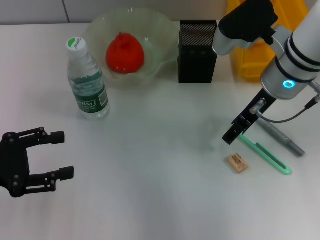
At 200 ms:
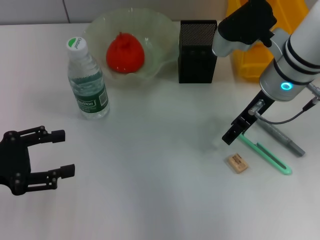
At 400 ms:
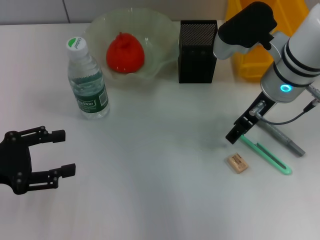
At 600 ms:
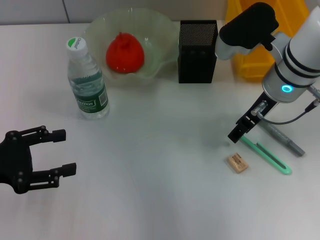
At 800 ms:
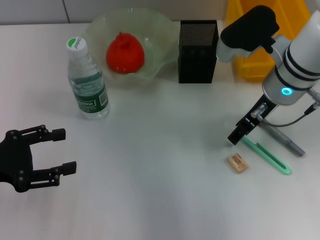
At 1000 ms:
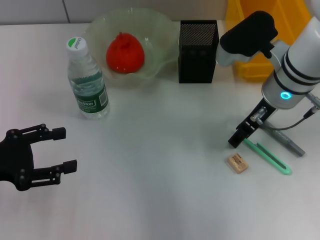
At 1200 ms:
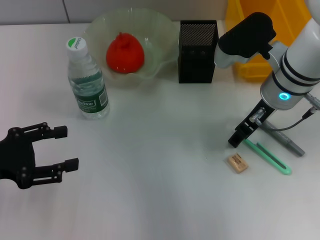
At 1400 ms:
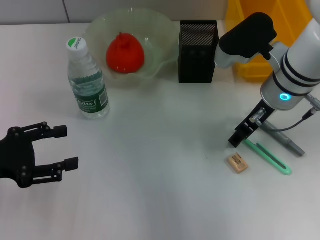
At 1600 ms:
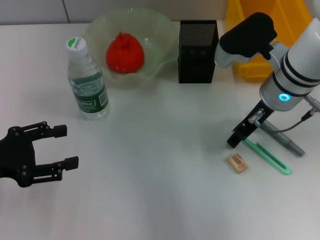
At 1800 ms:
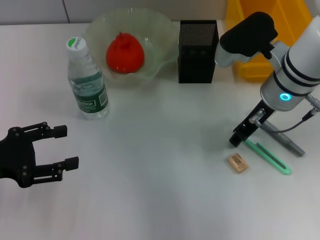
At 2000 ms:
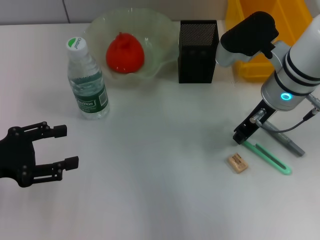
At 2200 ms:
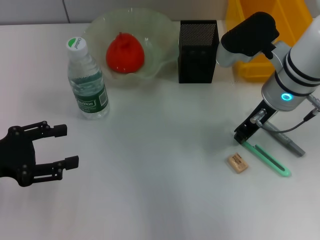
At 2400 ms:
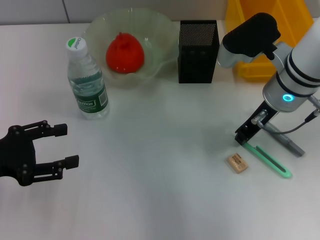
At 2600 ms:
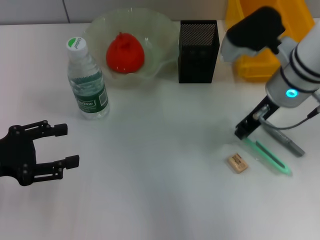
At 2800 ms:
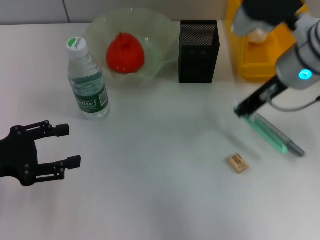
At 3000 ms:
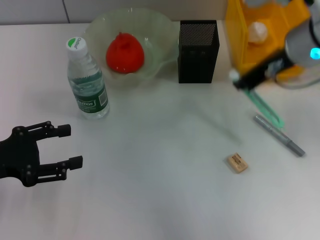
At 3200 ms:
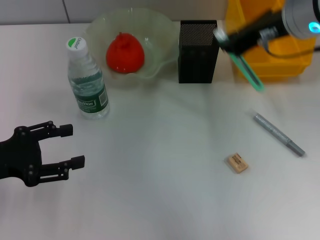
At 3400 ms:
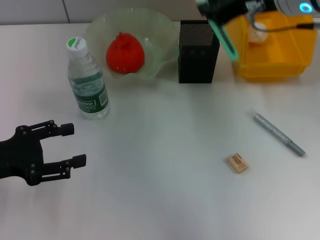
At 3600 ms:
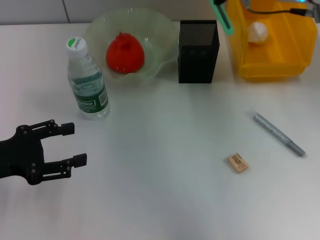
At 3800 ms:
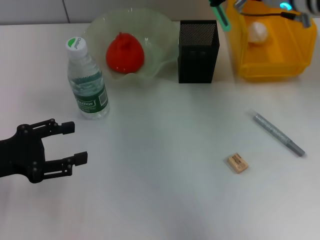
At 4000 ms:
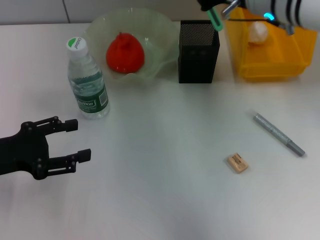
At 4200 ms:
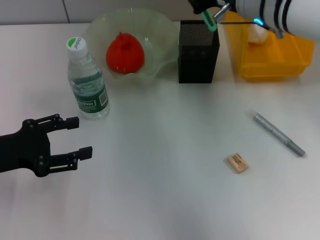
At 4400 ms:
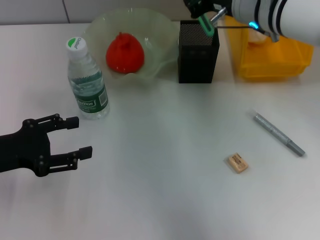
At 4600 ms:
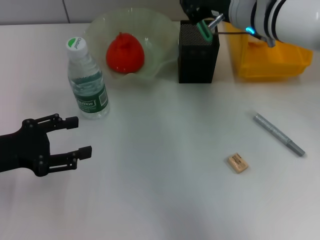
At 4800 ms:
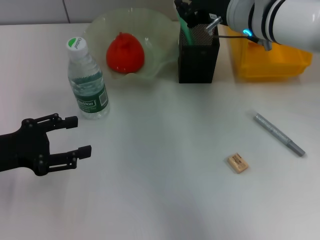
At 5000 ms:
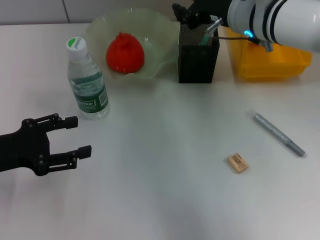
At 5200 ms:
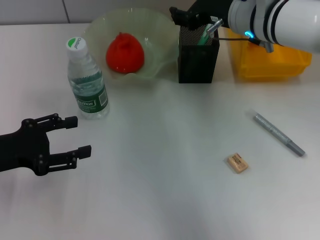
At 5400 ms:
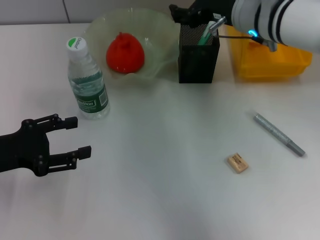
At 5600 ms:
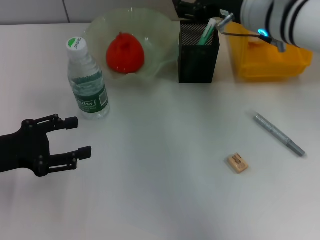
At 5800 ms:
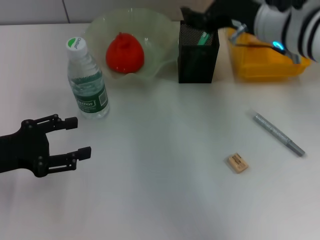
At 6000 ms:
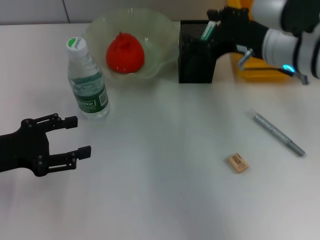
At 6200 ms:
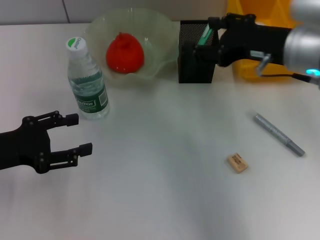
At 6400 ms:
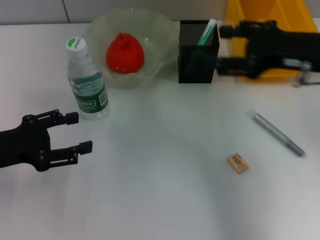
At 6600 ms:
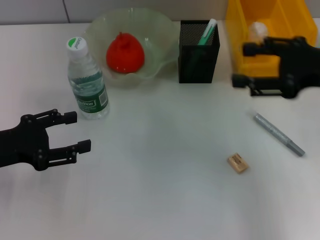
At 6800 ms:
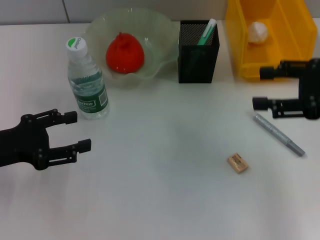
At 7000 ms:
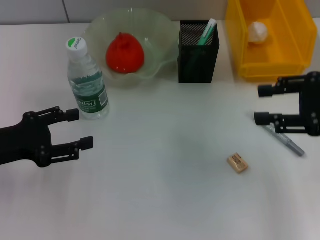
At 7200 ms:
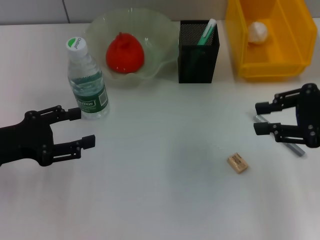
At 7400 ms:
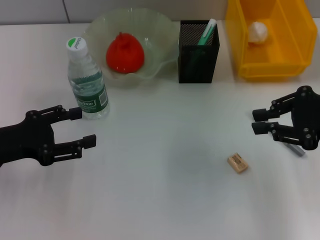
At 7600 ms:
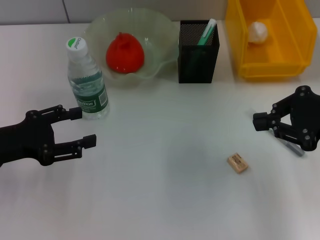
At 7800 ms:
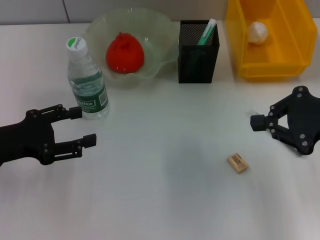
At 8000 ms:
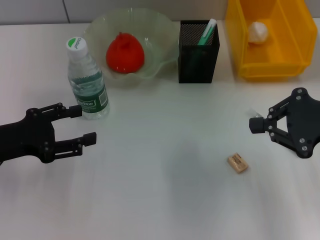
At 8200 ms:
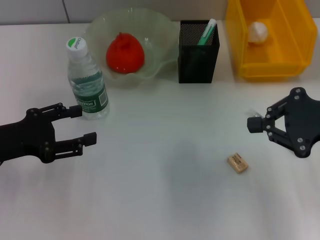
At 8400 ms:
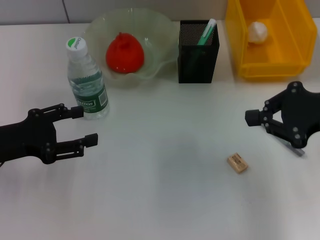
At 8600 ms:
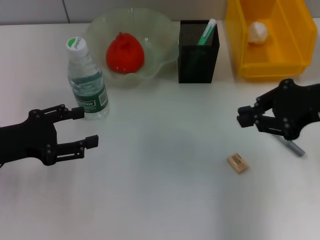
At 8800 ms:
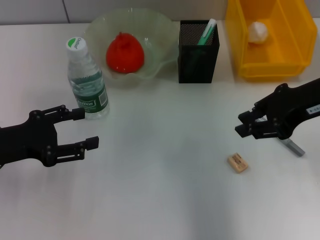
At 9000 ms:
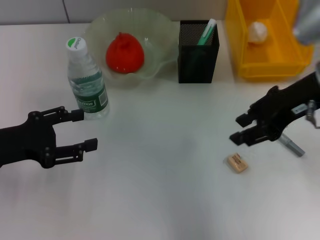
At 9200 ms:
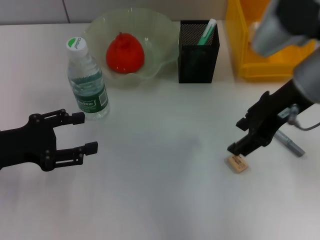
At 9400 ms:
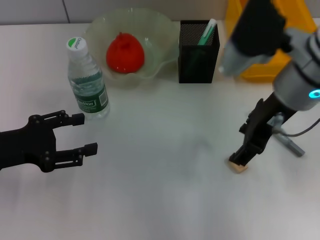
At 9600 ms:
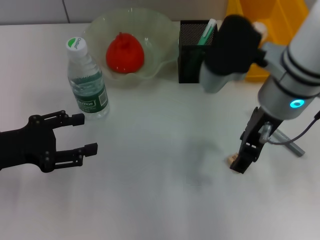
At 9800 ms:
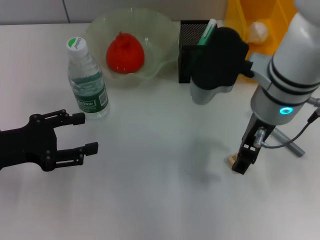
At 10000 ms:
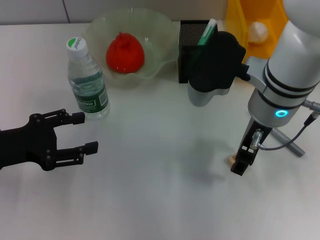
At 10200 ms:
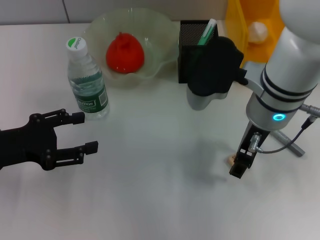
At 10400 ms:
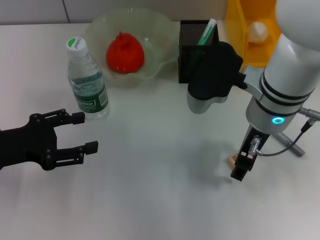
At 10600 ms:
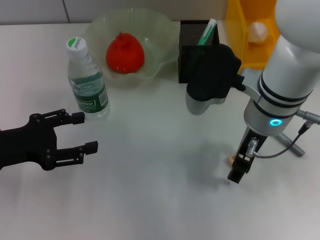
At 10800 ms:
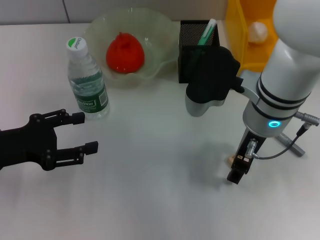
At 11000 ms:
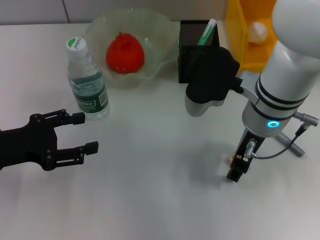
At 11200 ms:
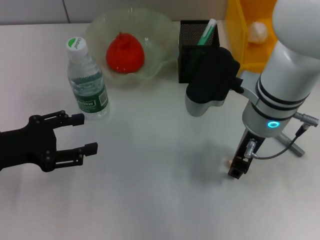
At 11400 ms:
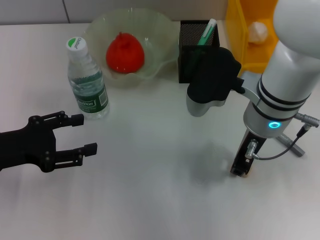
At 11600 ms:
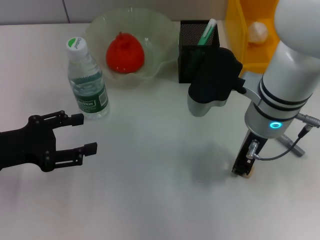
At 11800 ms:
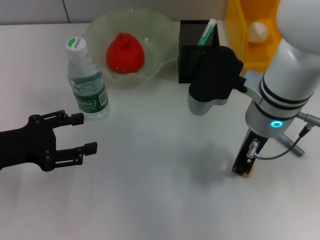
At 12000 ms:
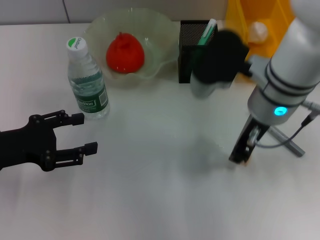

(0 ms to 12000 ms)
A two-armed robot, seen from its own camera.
Step, 0 ms - 2200 ms: Grab the blue utility knife with the right hand.
Step, 2400 ms - 5000 ms: Place the blue utility knife into the pen holder with the right hand.
Step, 5400 ms - 11600 ms: Grab the eraser with the right hand.
0 ms - 1600 ms: The grippers make only small movements.
1600 ms - 3000 ms: The right gripper travels upward by approximately 10 cm, and closes its fingers.
3000 ms - 4400 ms: The right gripper ends up some 5 cm from where it was.
4400 ms - 6000 ms: The right gripper shifts roughly 5 cm backward, and opens its fingers.
6000 ms - 7600 ms: The right gripper travels to the right and backward by approximately 15 cm, and closes.
7600 ms - 9000 ms: The right gripper heads to the left, covering approximately 10 cm.
9000 ms - 10400 ms: The right gripper travels to the left and downward by some 10 cm, and opens.
10400 ms - 12000 ms: The right gripper closes.

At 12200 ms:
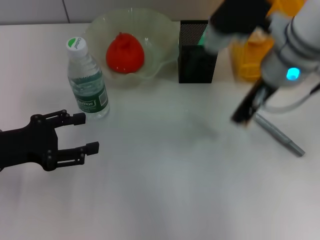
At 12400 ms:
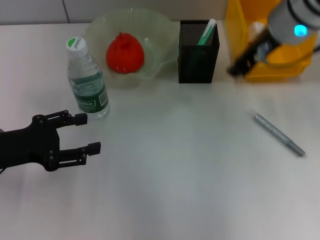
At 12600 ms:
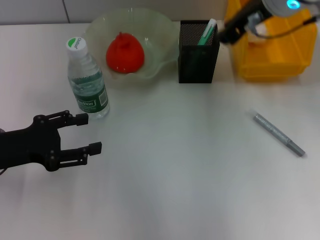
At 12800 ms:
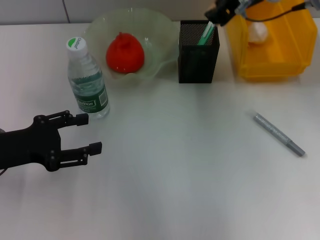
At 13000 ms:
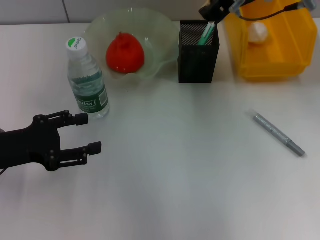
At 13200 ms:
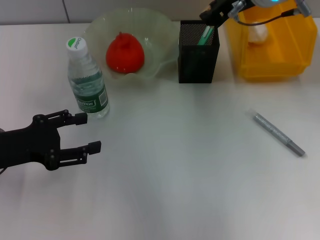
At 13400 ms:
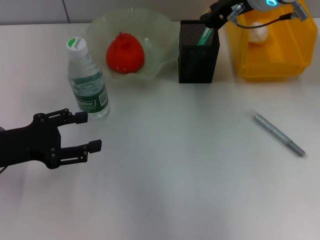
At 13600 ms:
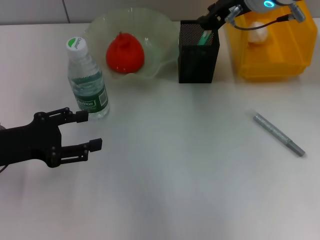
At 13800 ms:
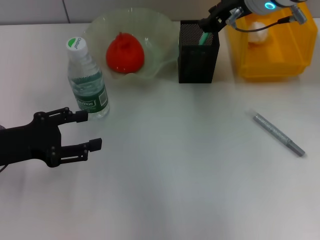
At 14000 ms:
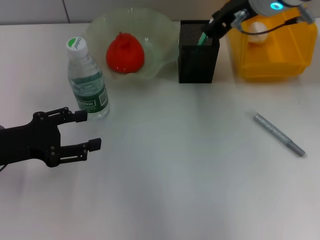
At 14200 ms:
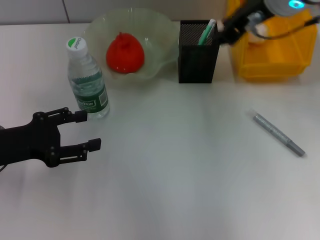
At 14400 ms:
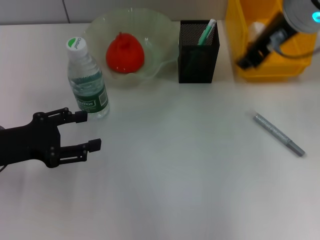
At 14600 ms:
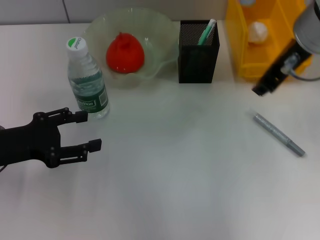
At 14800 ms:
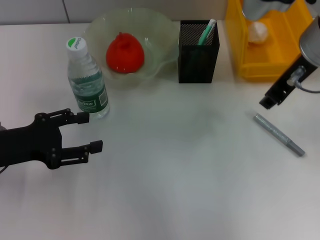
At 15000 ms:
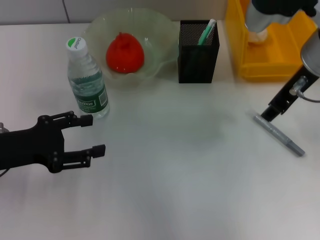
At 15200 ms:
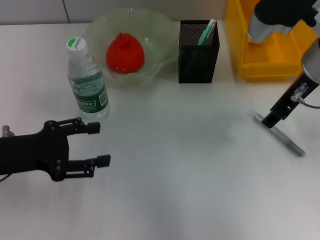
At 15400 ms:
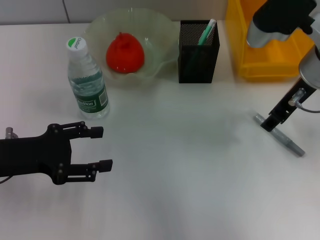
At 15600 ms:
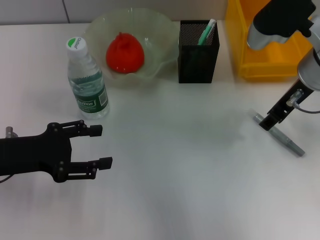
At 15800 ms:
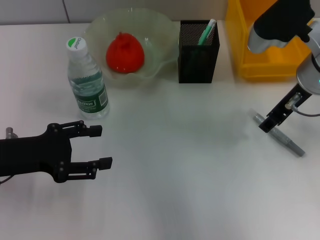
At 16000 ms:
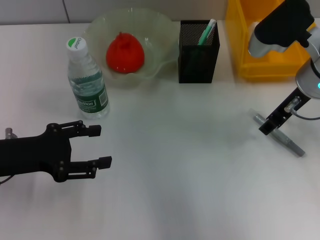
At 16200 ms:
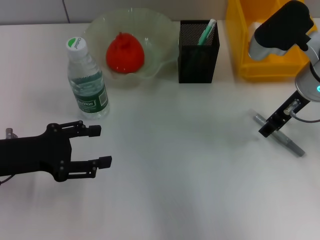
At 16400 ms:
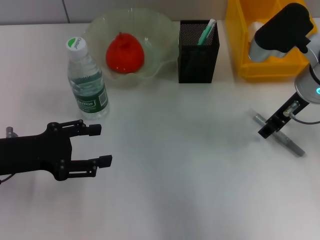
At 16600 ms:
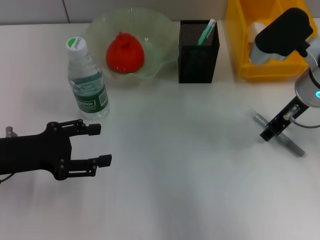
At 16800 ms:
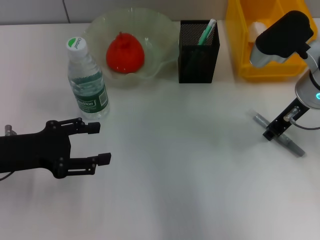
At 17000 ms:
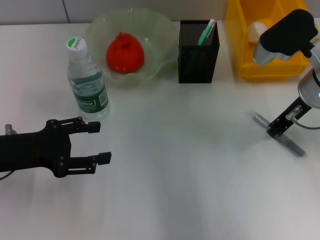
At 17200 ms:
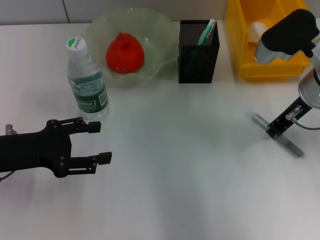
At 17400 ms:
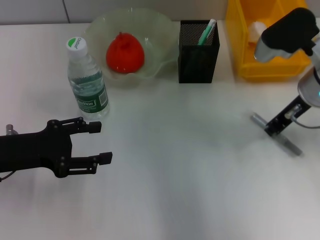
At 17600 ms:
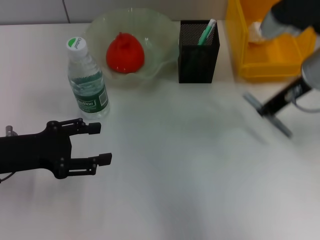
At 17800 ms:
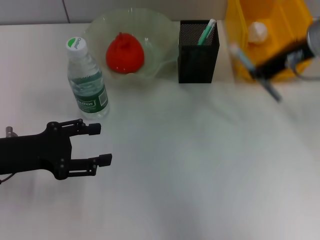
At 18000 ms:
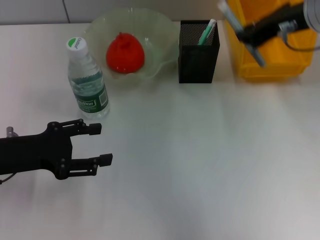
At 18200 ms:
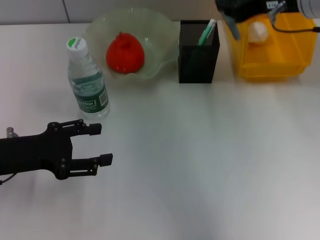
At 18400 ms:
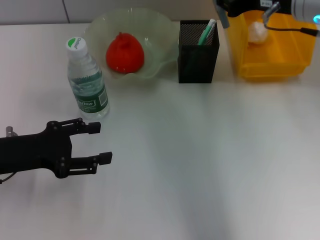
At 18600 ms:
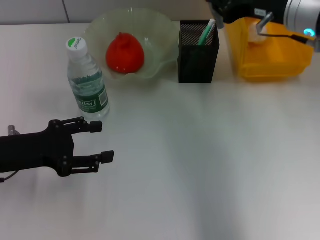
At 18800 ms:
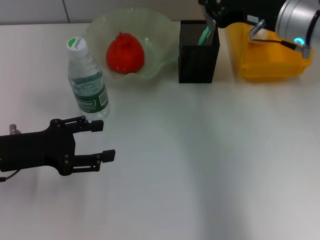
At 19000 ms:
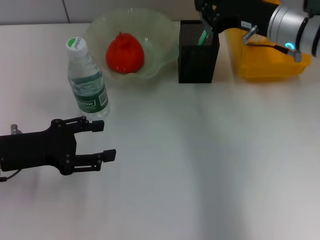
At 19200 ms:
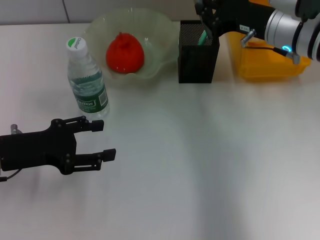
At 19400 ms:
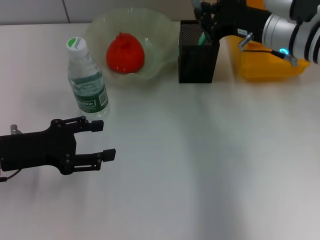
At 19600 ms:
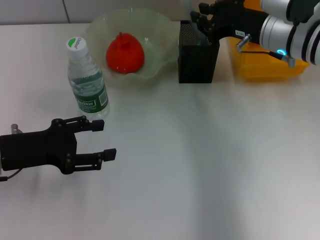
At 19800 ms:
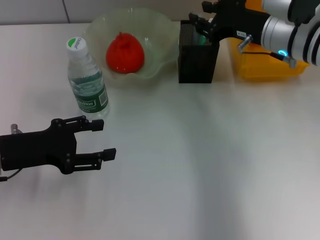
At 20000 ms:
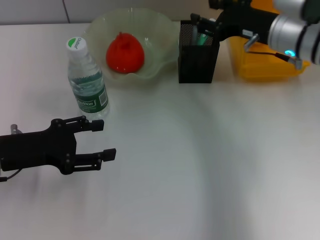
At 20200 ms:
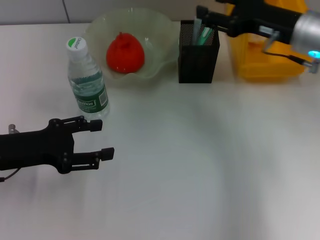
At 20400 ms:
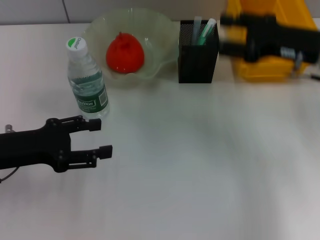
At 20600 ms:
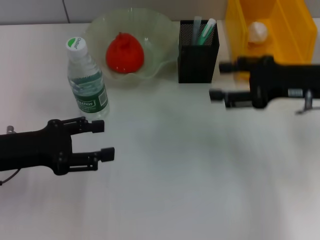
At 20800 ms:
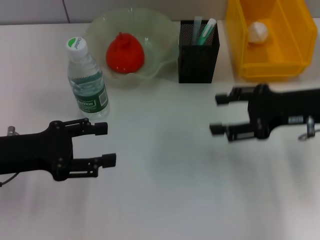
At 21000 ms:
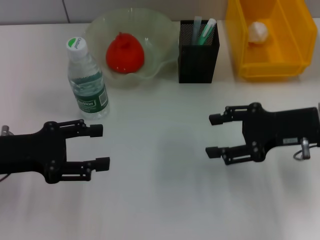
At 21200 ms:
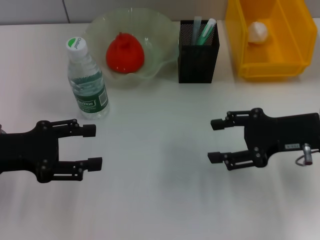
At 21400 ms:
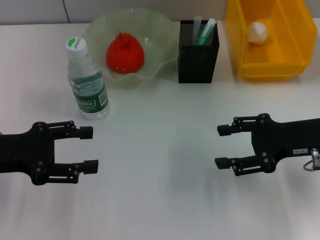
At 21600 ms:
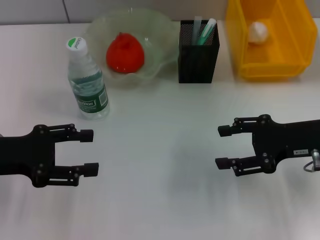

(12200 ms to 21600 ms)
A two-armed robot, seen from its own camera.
Step, 12200 ms - 13800 ms: Put the eraser into the pen holder with the right hand.
Step, 14000 ms - 17000 ms: Grab the gray glue with the right hand.
Step, 17200 ms - 19800 ms: Place the gray glue into the pen holder with the right hand.
12200 ms - 13800 ms: The right gripper is displaced forward by approximately 5 cm.
13800 ms - 15400 ms: The right gripper travels backward and to the right by approximately 10 cm, and opens.
15400 ms - 17000 ms: The right gripper ends up some 5 cm from where it was.
17000 ms - 18400 ms: The right gripper goes roughly 10 cm upward, and closes.
18400 ms - 20000 ms: The right gripper shifts roughly 10 cm downward, and opens up.
20000 ms - 21600 ms: The right gripper is displaced backward and to the right by some 15 cm.
